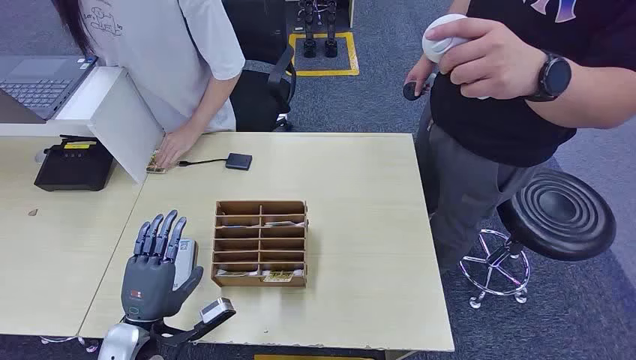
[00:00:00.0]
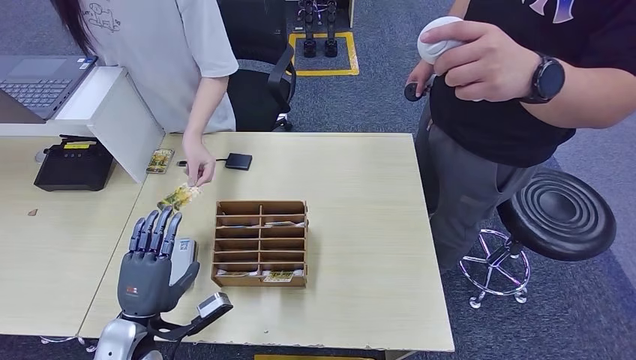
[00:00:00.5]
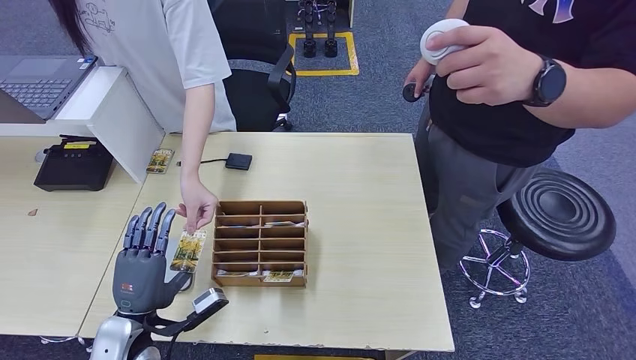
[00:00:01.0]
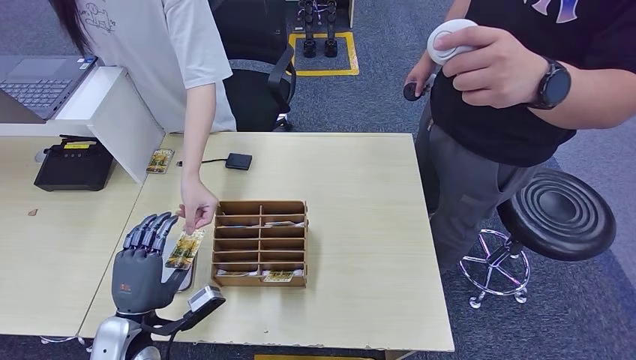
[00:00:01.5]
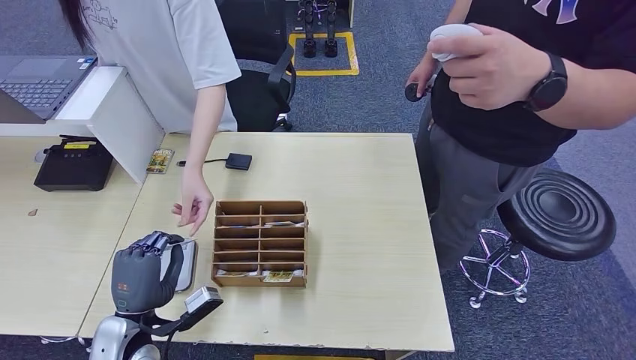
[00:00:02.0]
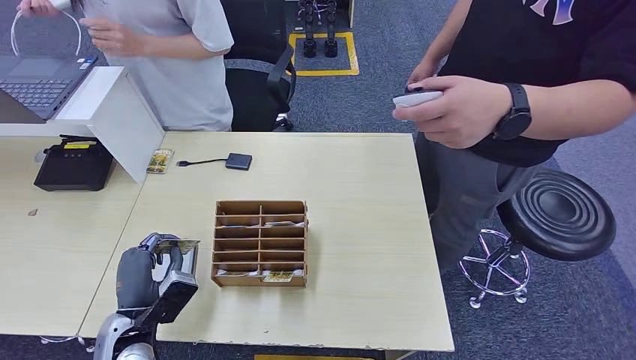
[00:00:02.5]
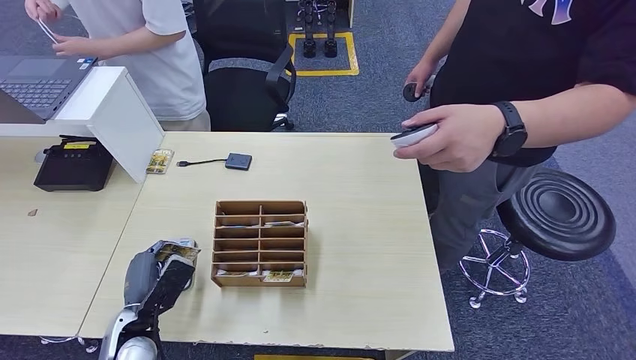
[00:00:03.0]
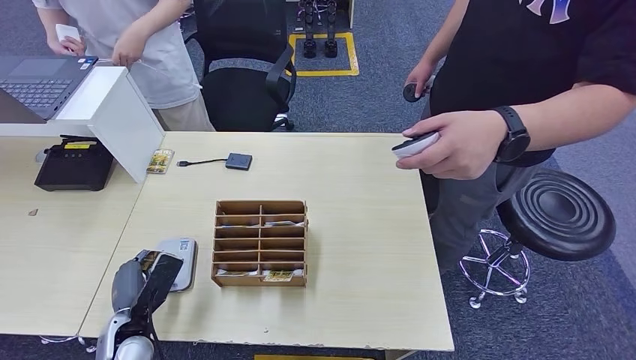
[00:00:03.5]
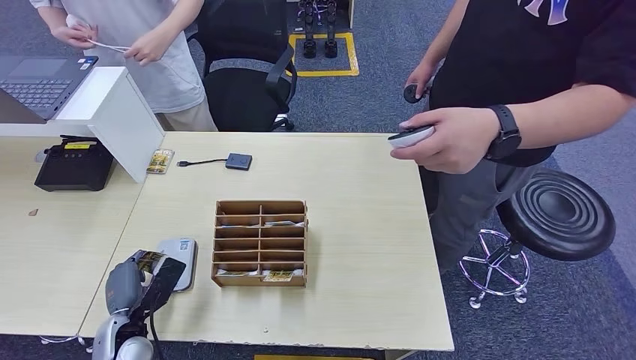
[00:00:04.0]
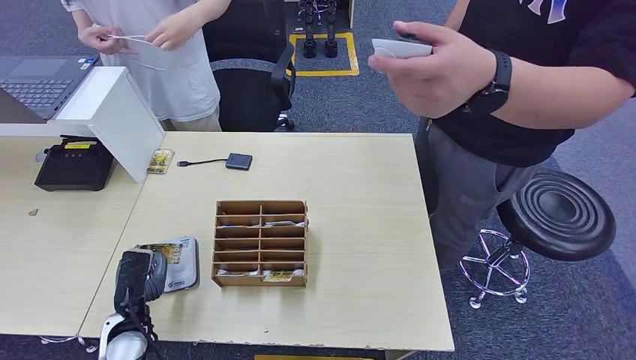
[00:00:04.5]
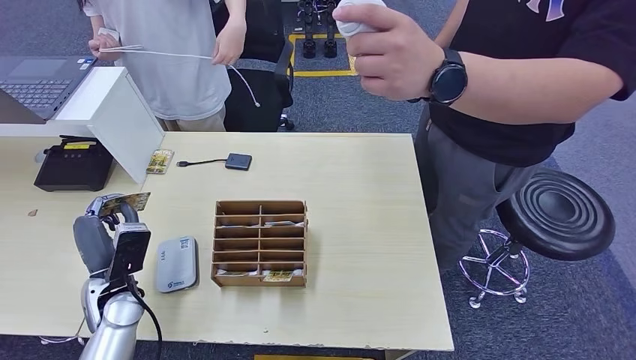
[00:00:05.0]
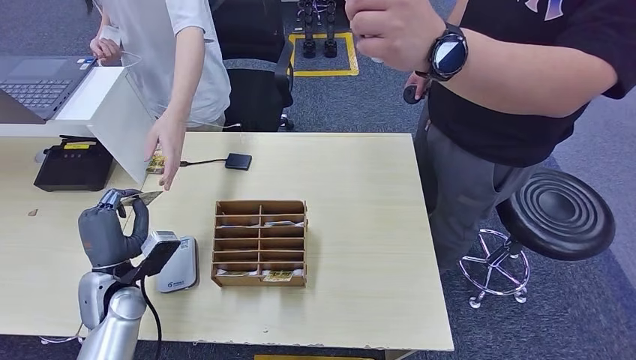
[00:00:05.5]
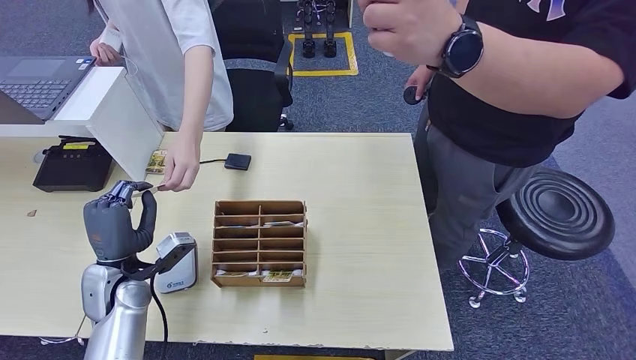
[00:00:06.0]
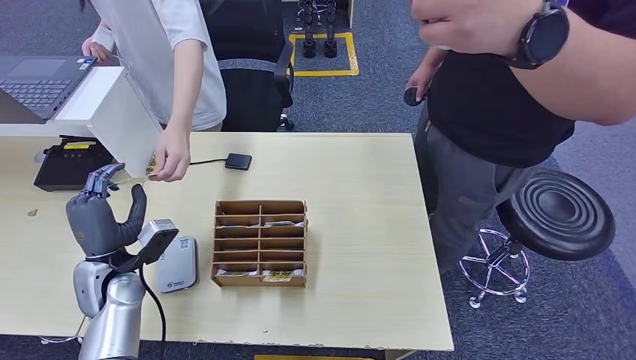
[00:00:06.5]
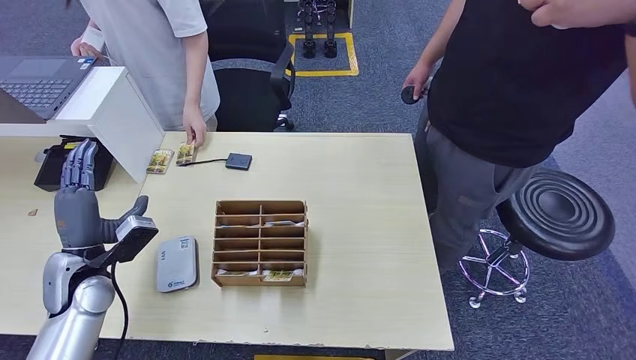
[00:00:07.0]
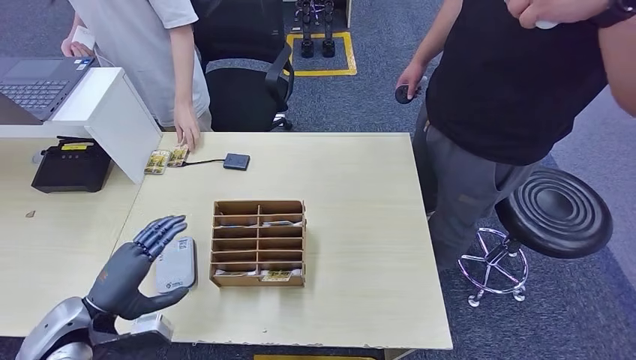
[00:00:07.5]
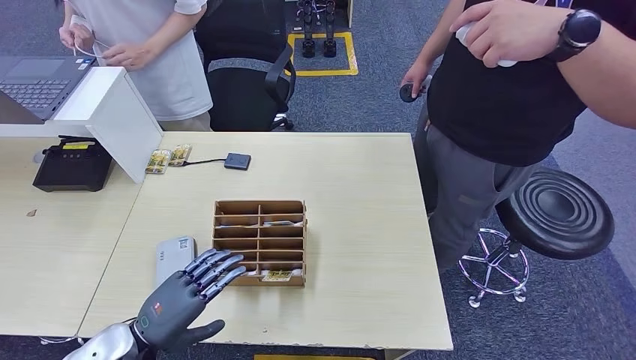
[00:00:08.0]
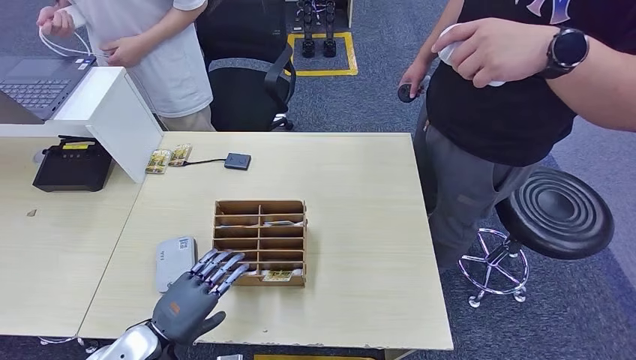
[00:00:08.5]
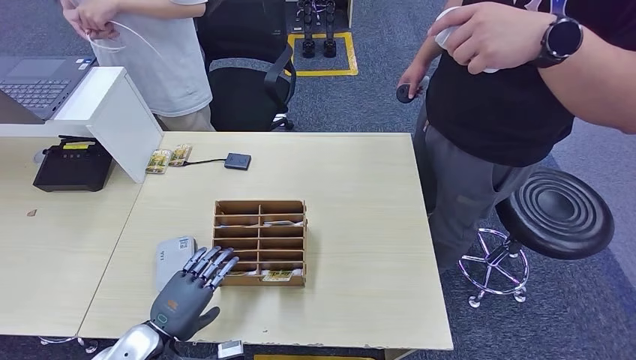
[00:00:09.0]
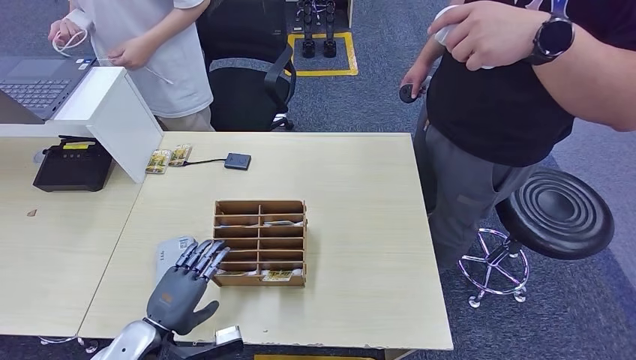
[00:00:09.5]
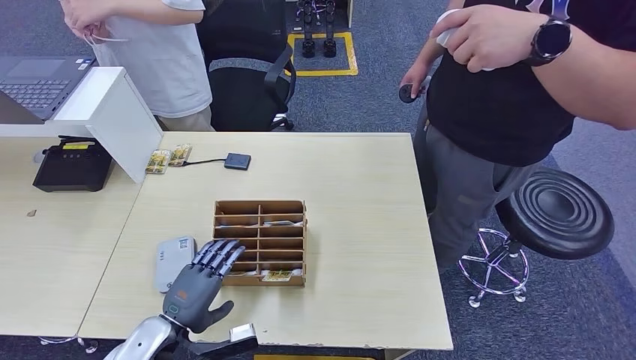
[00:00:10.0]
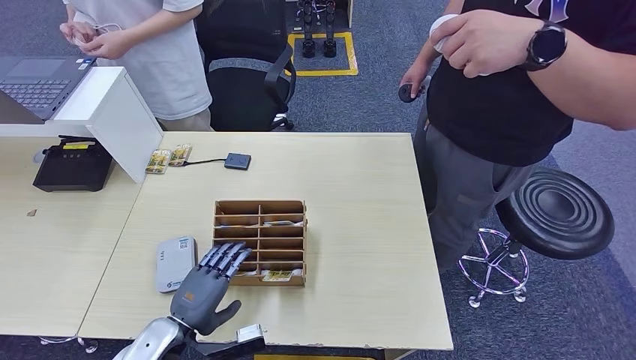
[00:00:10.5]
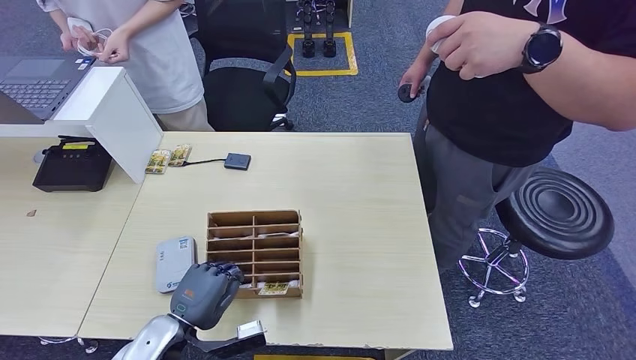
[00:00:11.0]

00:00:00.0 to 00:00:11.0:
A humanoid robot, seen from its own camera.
Step, 00:00:00.0 to 00:00:01.5: Take the ID card from the person's hand.
Step, 00:00:02.5 to 00:00:04.0: Place the ID card on the card reader.
Step, 00:00:04.5 to 00:00:06.0: Hand the ID card to the person.
00:00:07.5 to 00:00:09.0: The left hand shifts about 10 cm to the right and downward.
00:00:09.0 to 00:00:11.0: The hands move only a little.

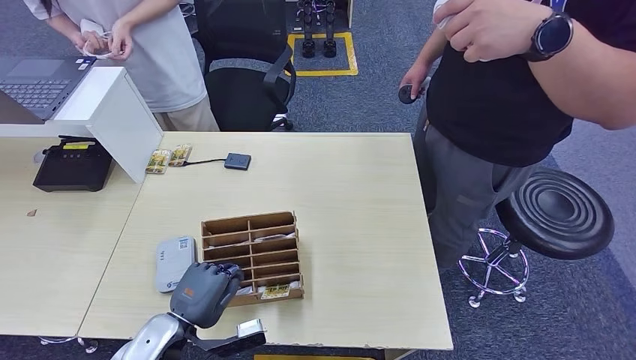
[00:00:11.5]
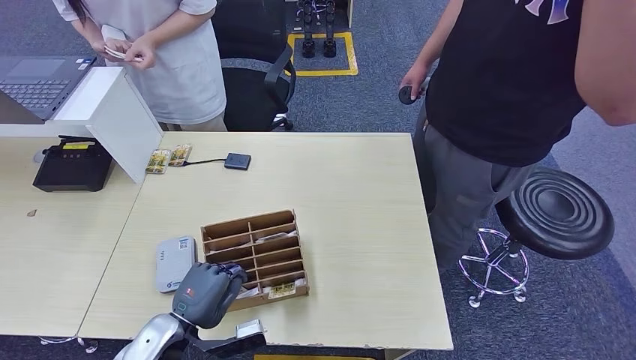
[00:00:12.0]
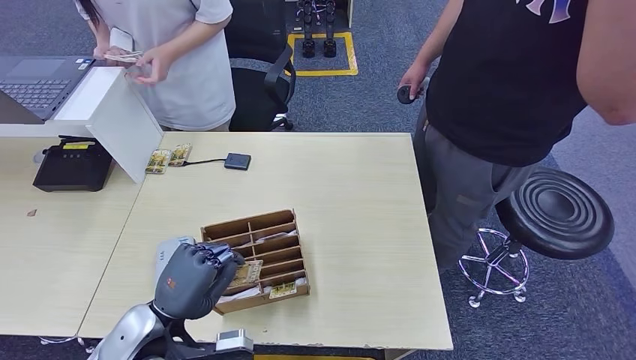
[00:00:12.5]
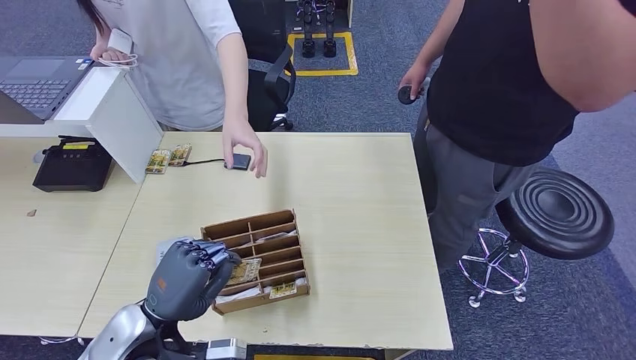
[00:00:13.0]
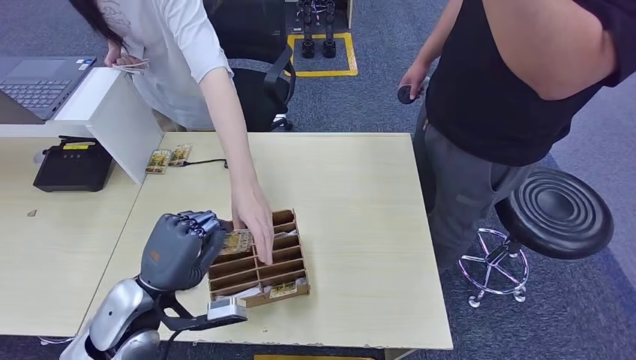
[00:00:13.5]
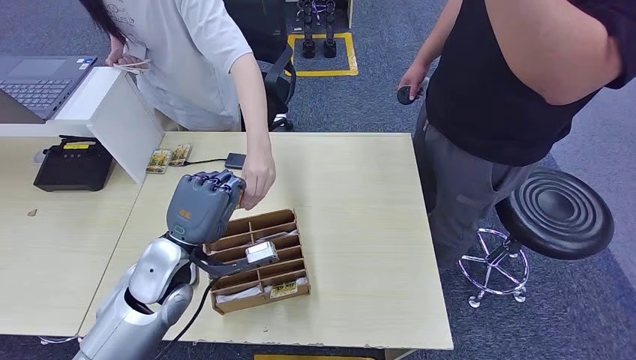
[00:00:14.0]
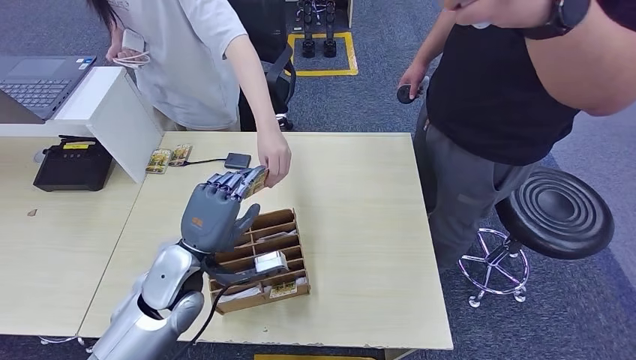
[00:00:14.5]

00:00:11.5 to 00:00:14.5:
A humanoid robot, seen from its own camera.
Step, 00:00:13.0 to 00:00:14.5: Hand the room key to the person.
00:00:11.5 to 00:00:13.0: The left hand moves upward, approximately 5 cm.
00:00:13.0 to 00:00:14.5: The left hand moves forward, approximately 10 cm.
